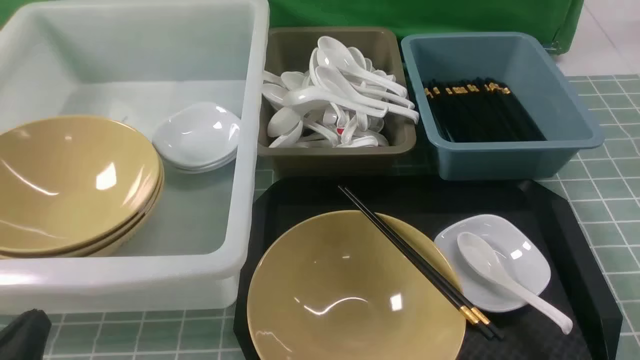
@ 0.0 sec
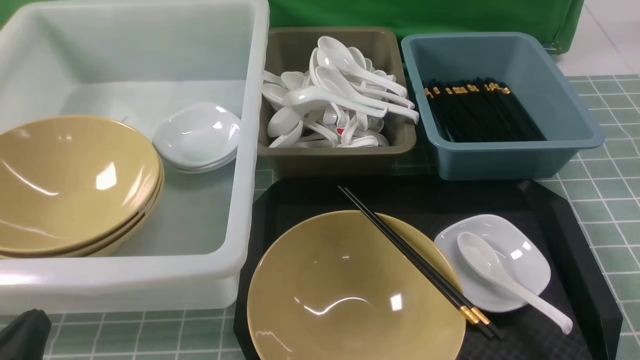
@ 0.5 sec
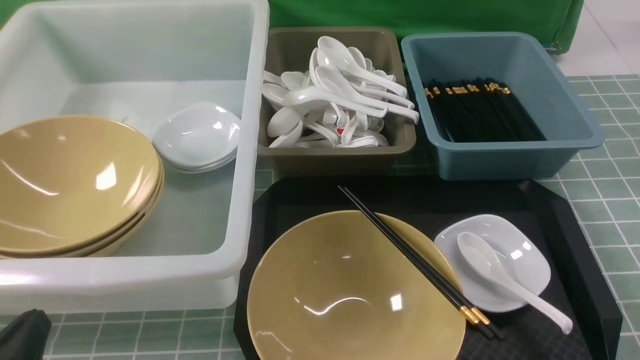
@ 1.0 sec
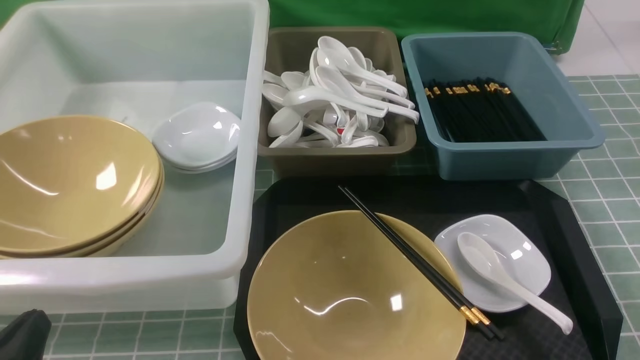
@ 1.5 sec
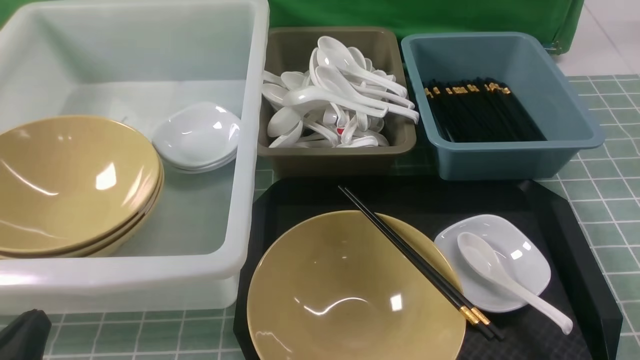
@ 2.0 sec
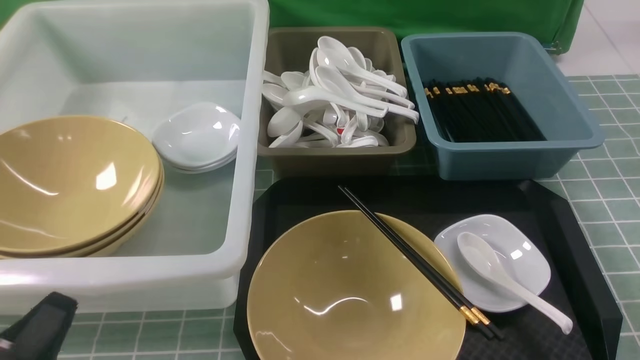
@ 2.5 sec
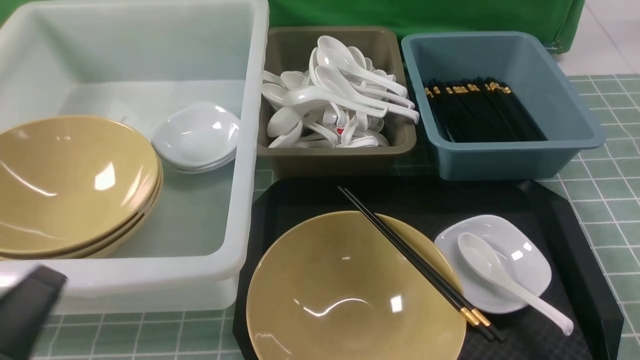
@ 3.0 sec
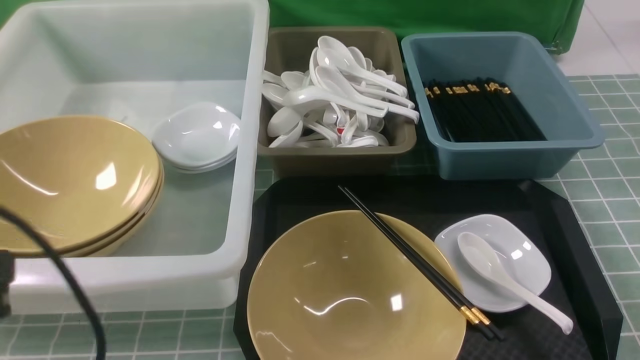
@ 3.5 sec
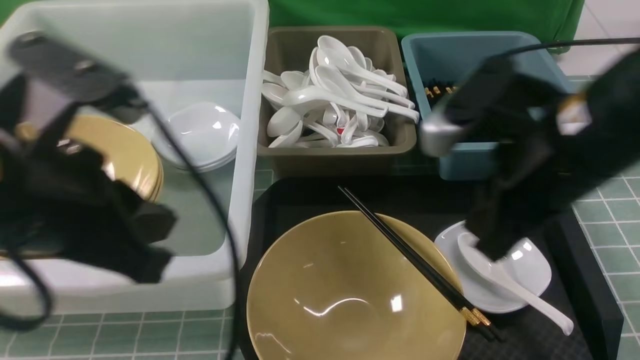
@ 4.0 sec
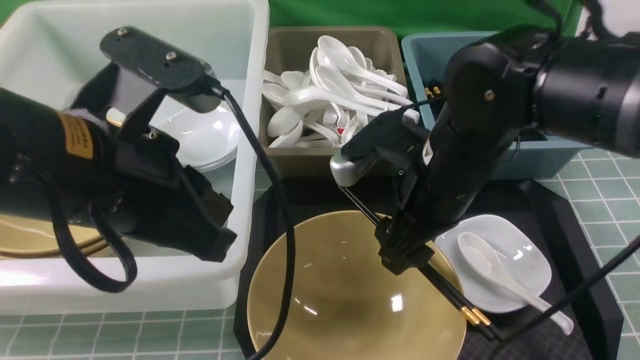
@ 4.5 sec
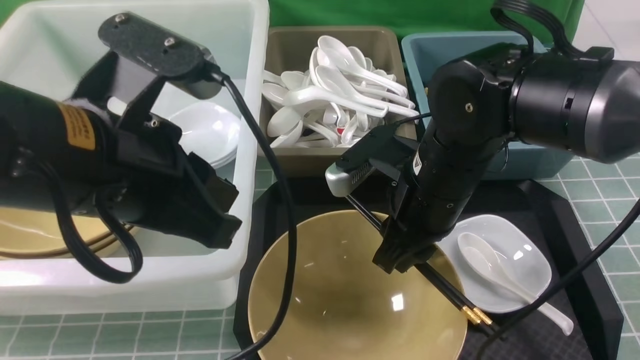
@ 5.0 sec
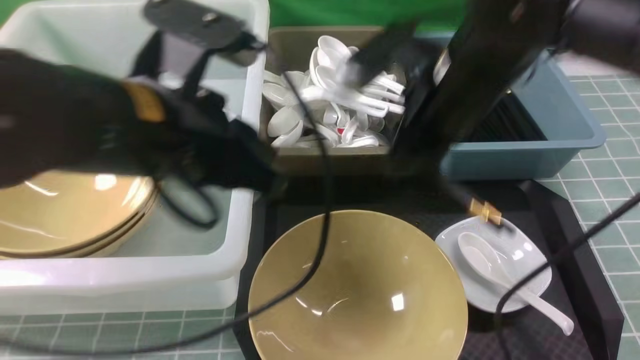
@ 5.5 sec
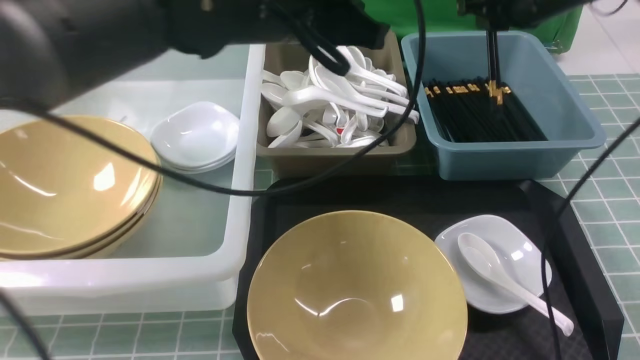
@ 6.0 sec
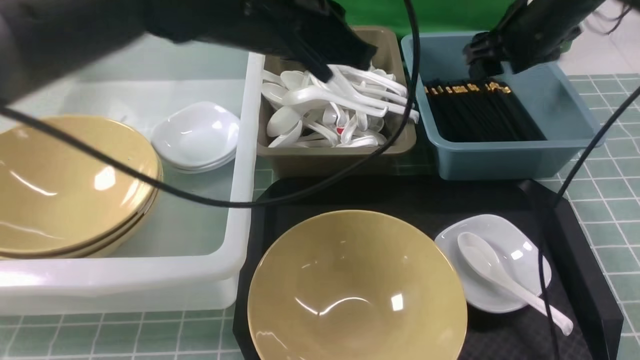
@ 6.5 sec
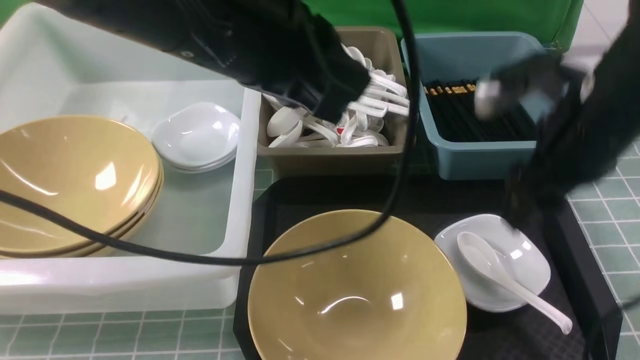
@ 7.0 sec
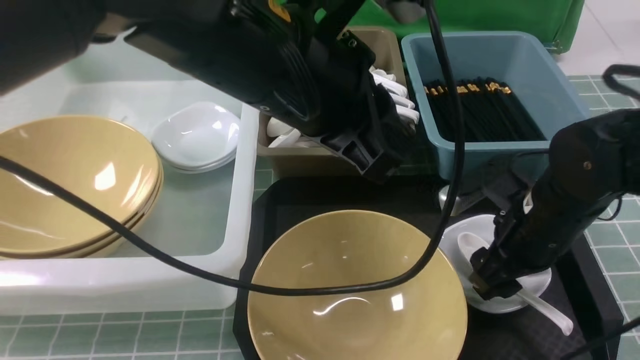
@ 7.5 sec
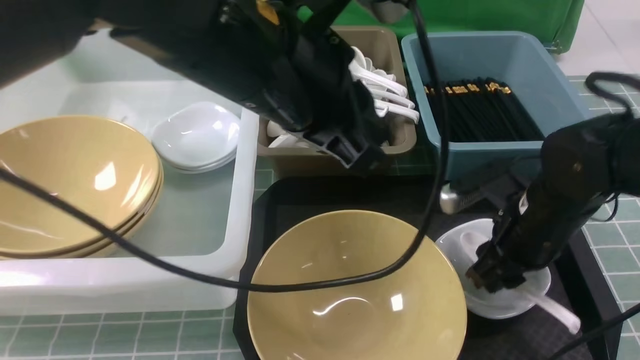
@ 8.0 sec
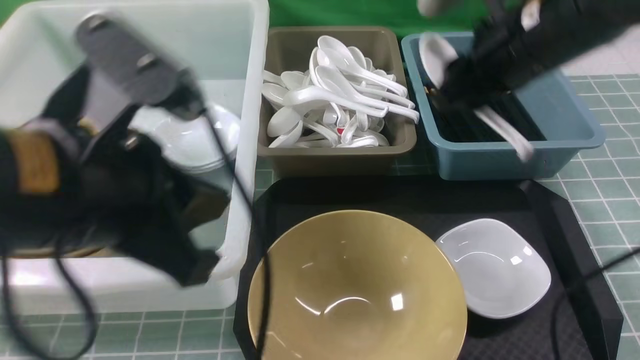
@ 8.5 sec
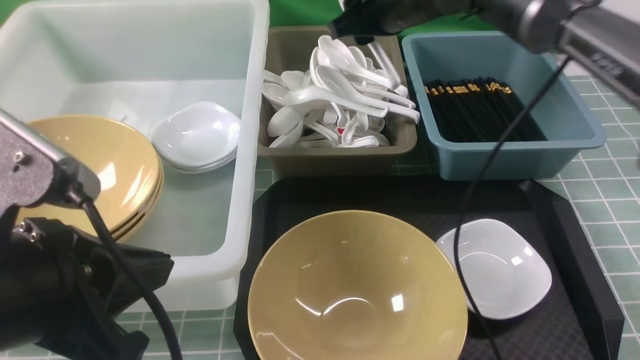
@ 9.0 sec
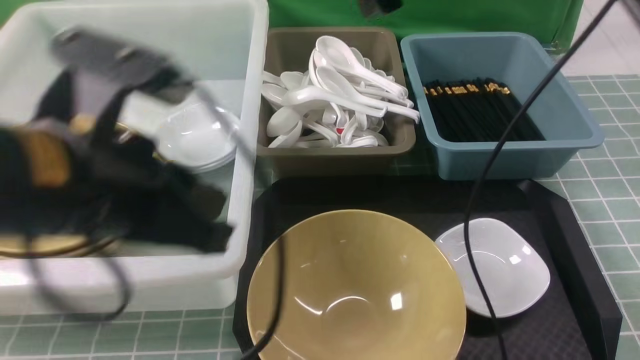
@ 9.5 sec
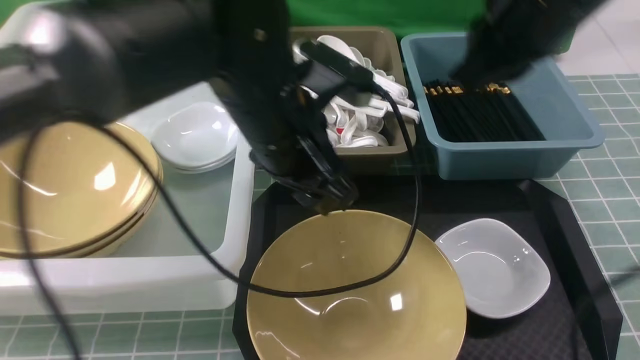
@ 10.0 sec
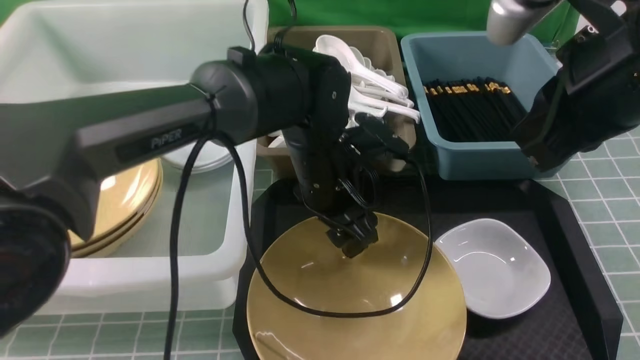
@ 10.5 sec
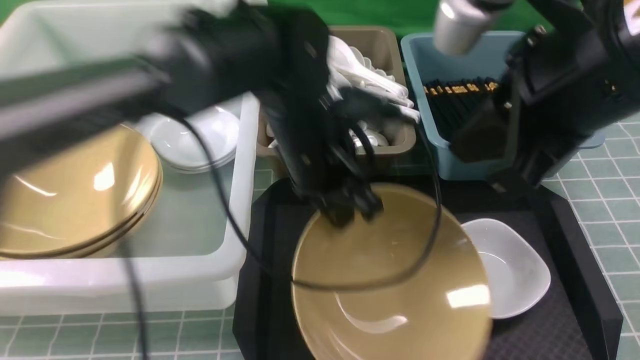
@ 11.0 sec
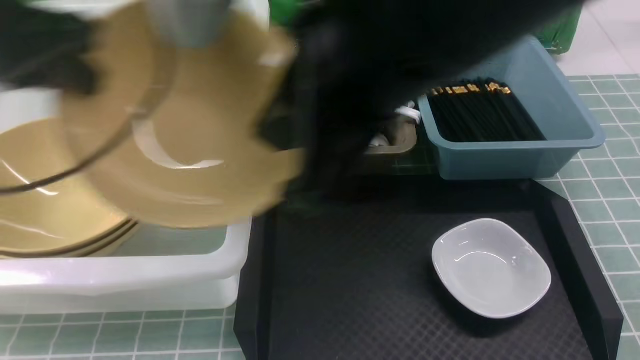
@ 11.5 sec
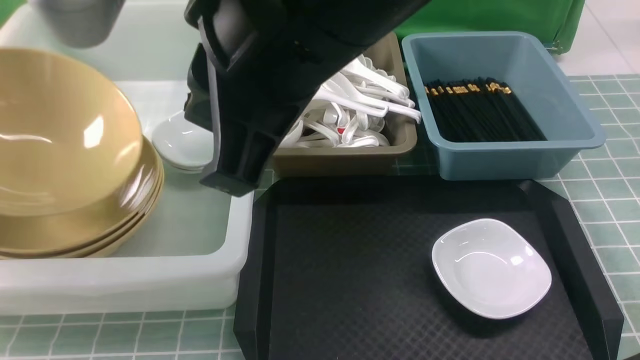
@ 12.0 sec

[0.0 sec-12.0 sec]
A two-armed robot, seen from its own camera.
Task of the whole recording: on blue table put chopsticks spoon bowls plates into blue grey white boxes.
Step, 0.0 sec to 5.0 sec: use the right arm to grab the chopsticks.
Step, 6.0 sec to 6.5 sec: use the right arm to put the chopsticks into the small storage box on the right.
Step, 7.0 sec to 8.0 sec: use the right arm to grab the soup spoon in the middle.
Step, 8.5 sec to 9.0 sec: use the right arm to put the soup spoon into the small storage box in the middle.
Step, 9.5 sec to 11.0 sec: use the left arm to grab the yellow noodle bowl on the left.
0.0 sec to 2.0 sec: Both grippers stay about where they are.
2.0 sec to 4.0 sec: The right gripper is displaced forward, to the left and upward by roughly 30 cm. The left gripper moves upward, forward and to the right, about 25 cm.
4.0 sec to 6.0 sec: The left gripper heads forward and to the right, covering some 20 cm, while the right gripper travels forward by some 20 cm, and opens and closes again.
6.0 sec to 8.0 sec: The left gripper is displaced backward by some 10 cm. The right gripper travels backward and downward by about 20 cm, and opens, then closes again.
8.0 sec to 10.0 sec: The right gripper travels upward by roughly 20 cm, and closes up. Meanwhile the left gripper heads downward, covering about 10 cm, reaches some 10 cm backward, then returns, and opens up.
10.0 sec to 12.0 sec: The left gripper shifts approximately 35 cm to the left, and closes, while the right gripper moves to the left and backward, roughly 20 cm.

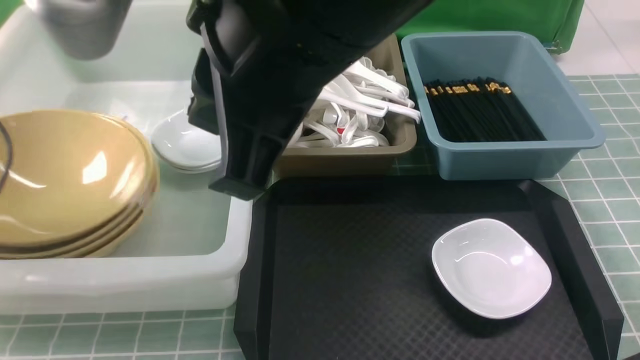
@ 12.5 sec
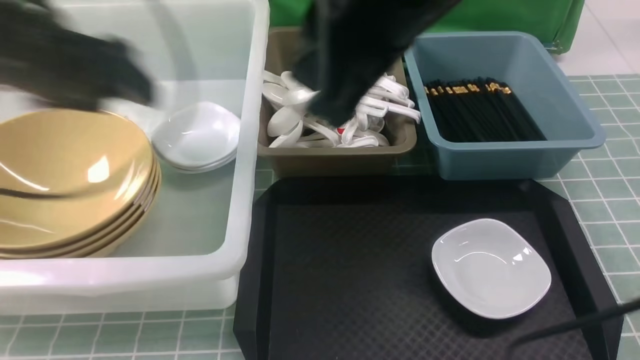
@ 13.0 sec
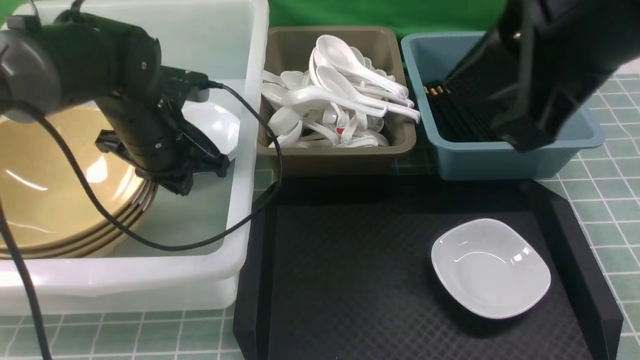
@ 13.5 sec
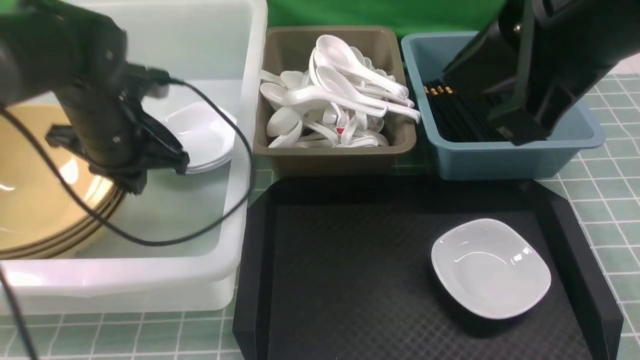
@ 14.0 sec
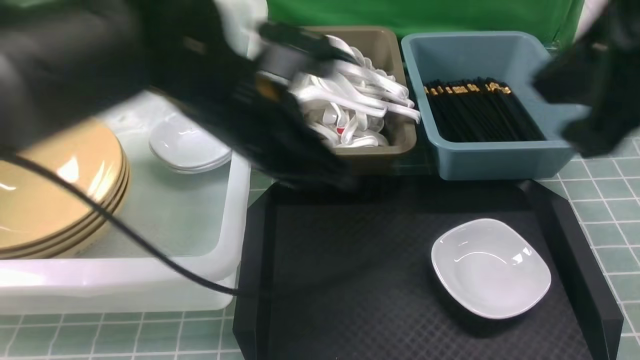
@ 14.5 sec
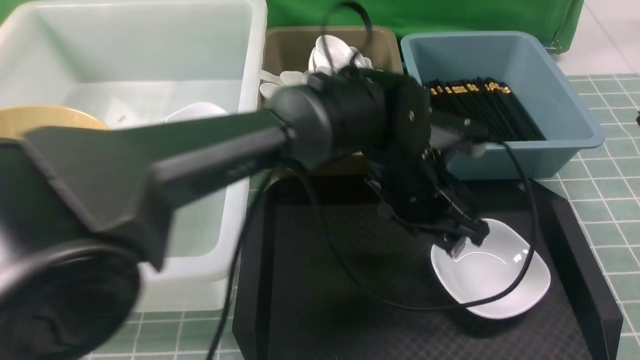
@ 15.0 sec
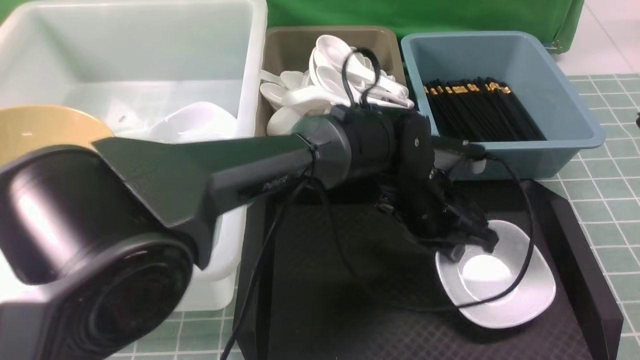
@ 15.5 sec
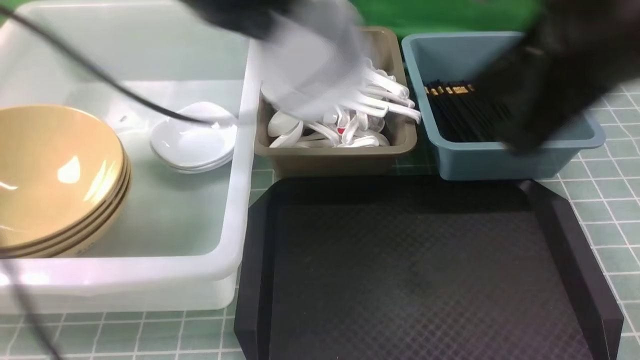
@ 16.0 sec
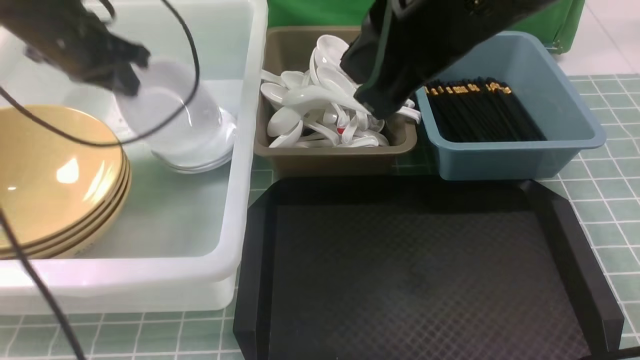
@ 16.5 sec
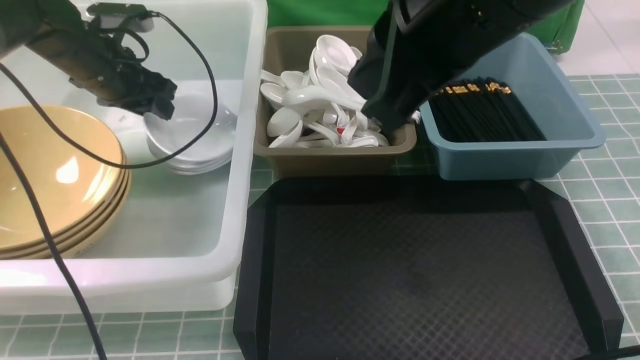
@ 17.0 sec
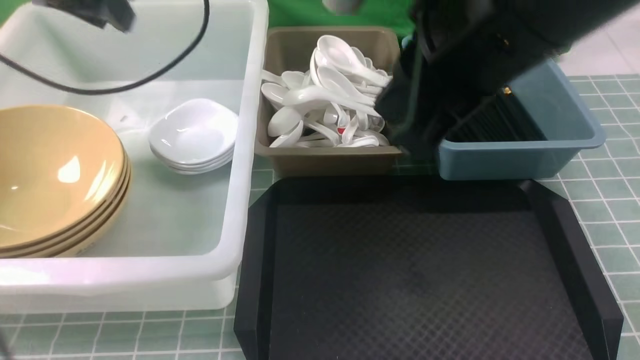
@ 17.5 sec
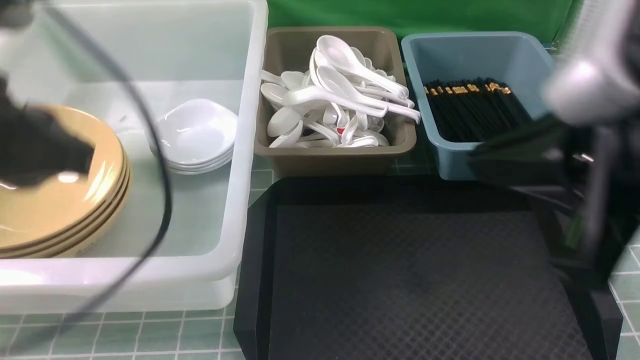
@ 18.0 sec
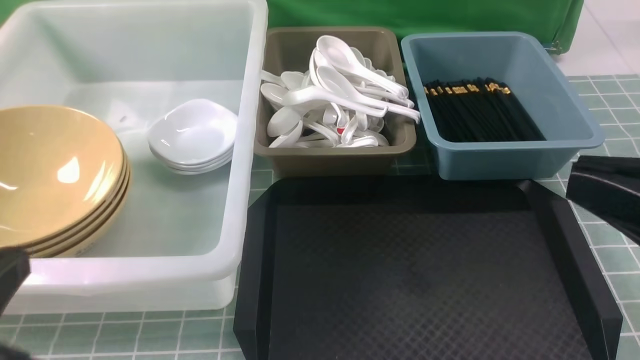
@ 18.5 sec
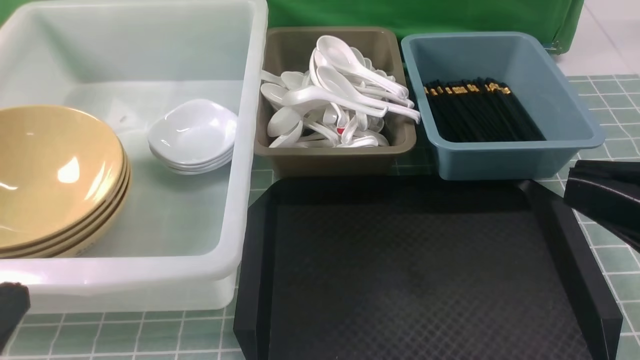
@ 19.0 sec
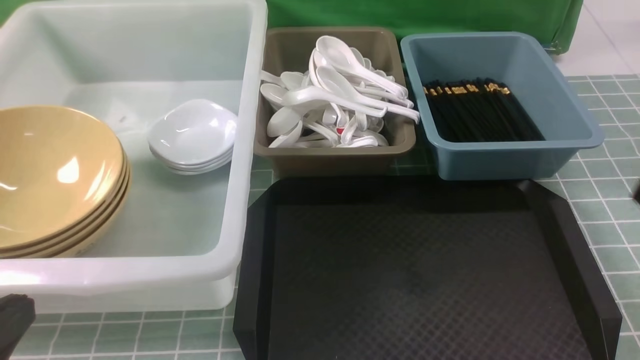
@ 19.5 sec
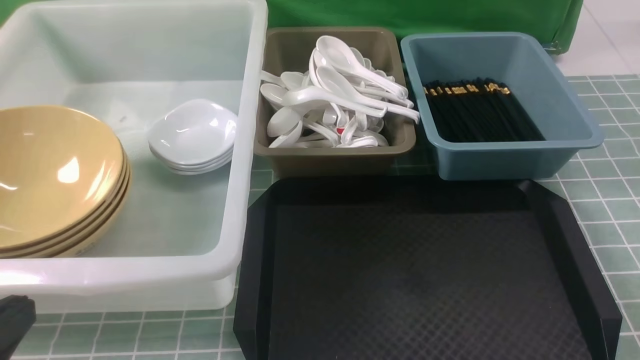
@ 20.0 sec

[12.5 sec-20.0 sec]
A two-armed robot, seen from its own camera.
Task of the whole recording: on blue table put chopsticks spoon bowls plates into blue grey white boxes.
Step, 13.0 sec to 15.5 sec: use the left arm to grab the plate.
Step, 16.0 sec to 17.0 sec: use the left arm to put the plate into the large storage box on the left.
12.5 sec to 14.5 sec: The left gripper moves to the right, some 35 cm, and closes its fingers, while the right gripper shifts approximately 15 cm to the right.
14.5 sec to 16.5 sec: The right gripper goes some 10 cm to the left and forward; the left gripper shifts approximately 25 cm to the left and forward, and opens and closes again.
16.5 sec to 18.0 sec: The right gripper goes approximately 15 cm backward and to the right, while the left gripper travels backward by approximately 25 cm, and opens and closes again.
18.0 sec to 20.0 sec: The right gripper heads downward and to the right, covering some 25 cm. The left gripper is displaced backward and downward by approximately 15 cm.
